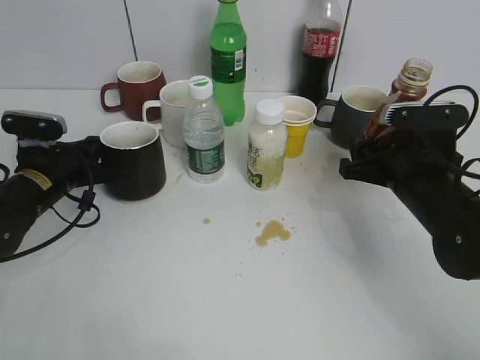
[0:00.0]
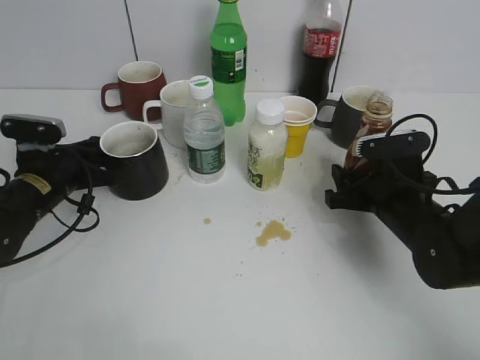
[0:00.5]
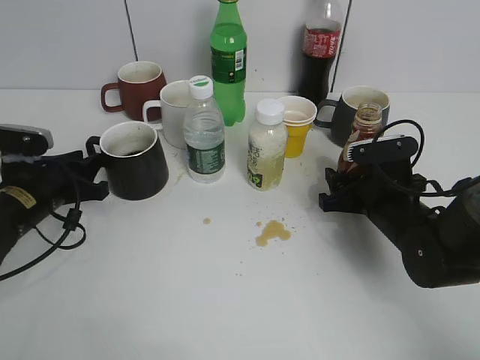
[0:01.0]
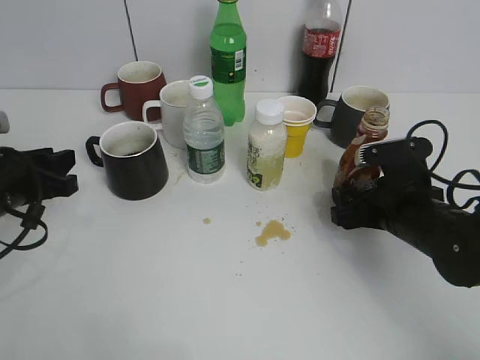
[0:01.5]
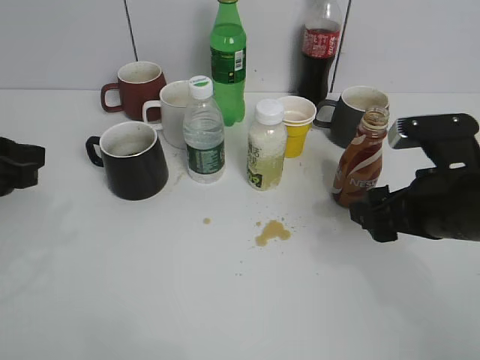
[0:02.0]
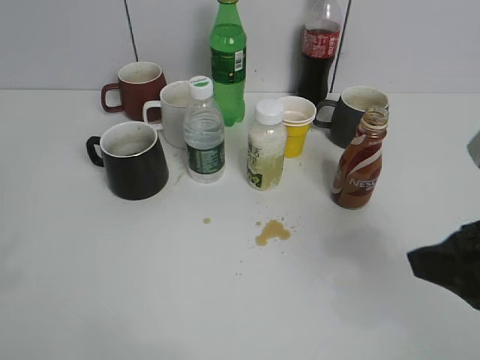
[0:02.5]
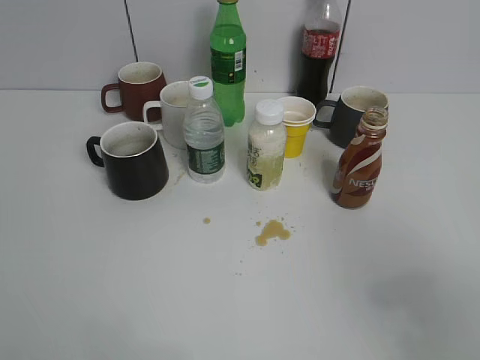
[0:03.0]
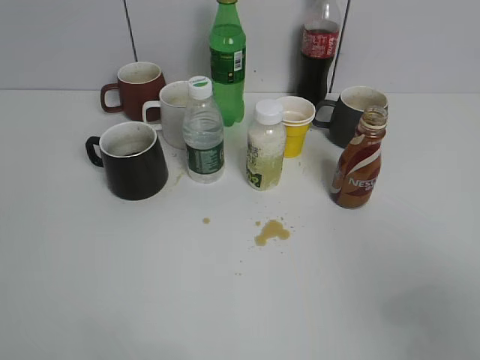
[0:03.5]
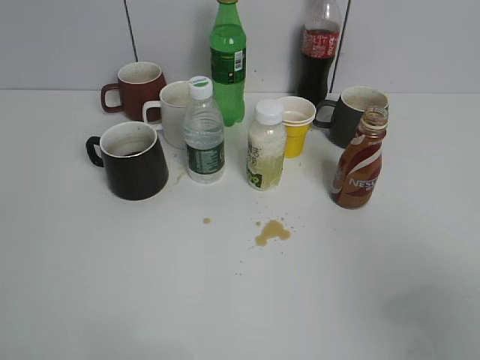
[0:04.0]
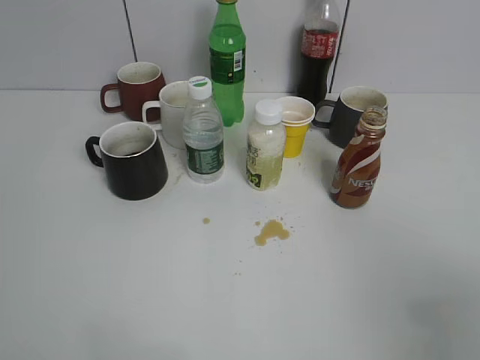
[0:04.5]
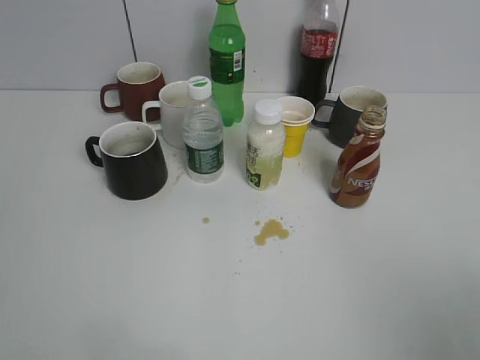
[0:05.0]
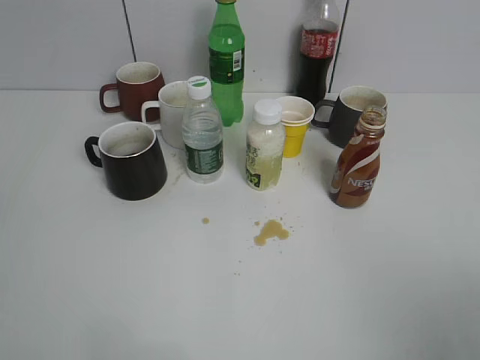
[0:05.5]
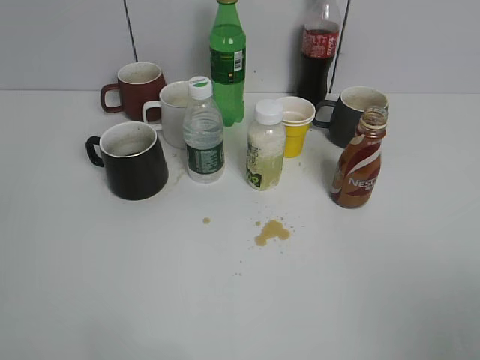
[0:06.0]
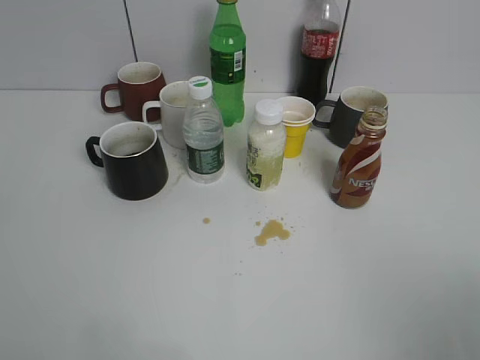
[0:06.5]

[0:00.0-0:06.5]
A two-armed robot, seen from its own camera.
0:00.0 to 0:02.0: The left gripper moves upward and backward, roughly 20 cm, and opens; the right gripper travels backward by about 5 cm, and opens.
0:02.0 to 0:04.5: The left gripper moves backward and upward, some 20 cm. The right gripper heads backward, upward and to the right, covering some 25 cm.
